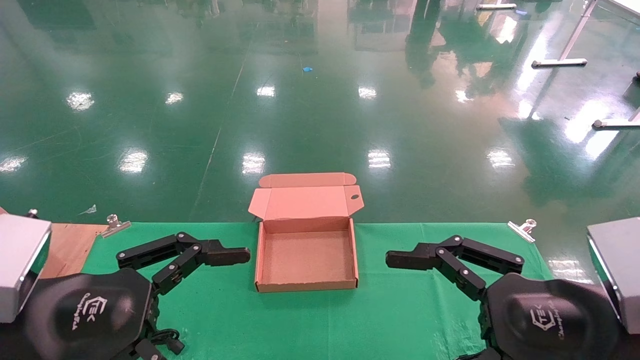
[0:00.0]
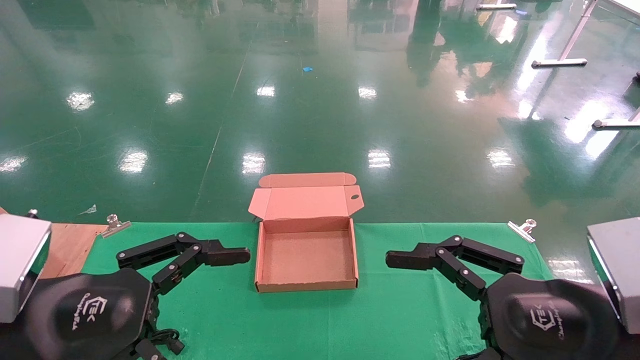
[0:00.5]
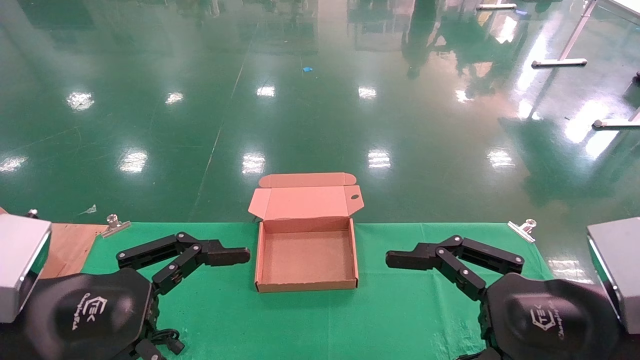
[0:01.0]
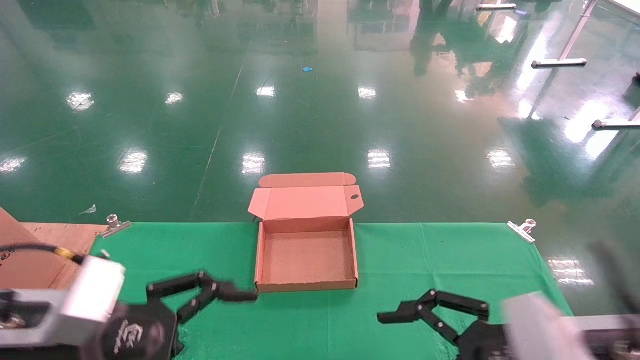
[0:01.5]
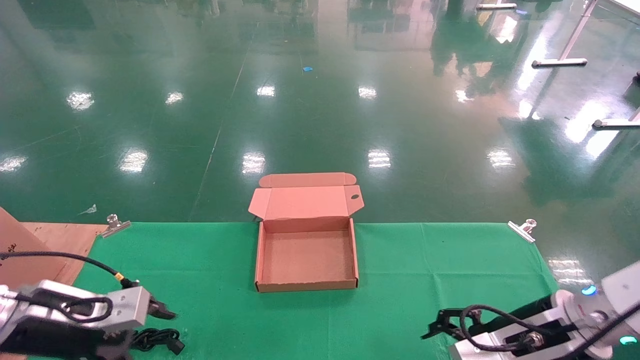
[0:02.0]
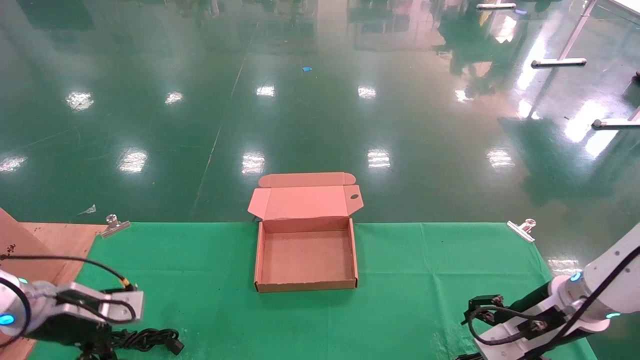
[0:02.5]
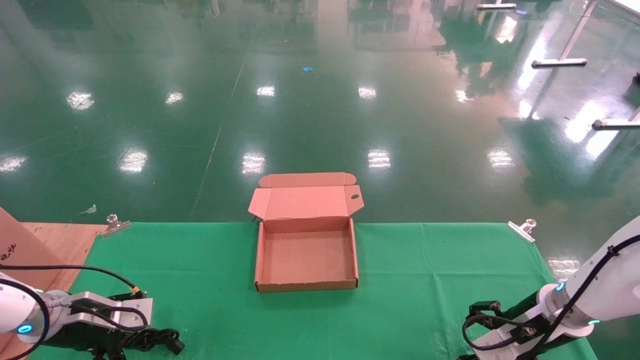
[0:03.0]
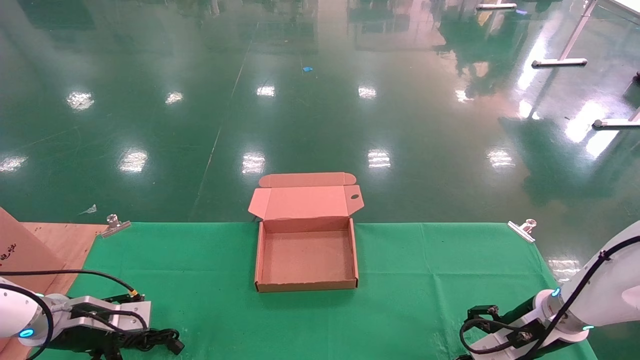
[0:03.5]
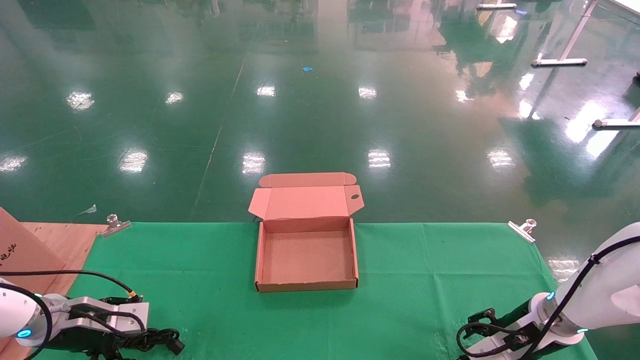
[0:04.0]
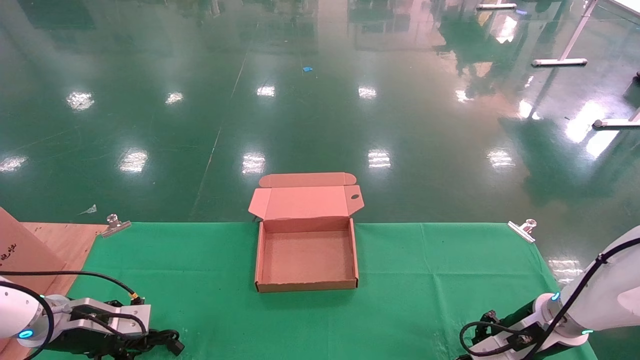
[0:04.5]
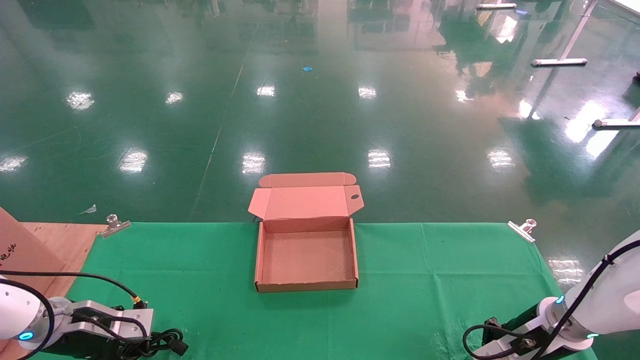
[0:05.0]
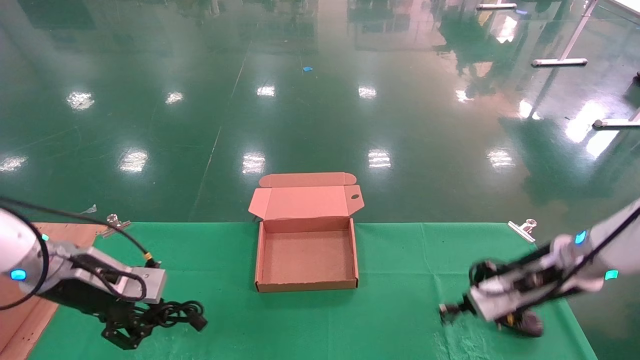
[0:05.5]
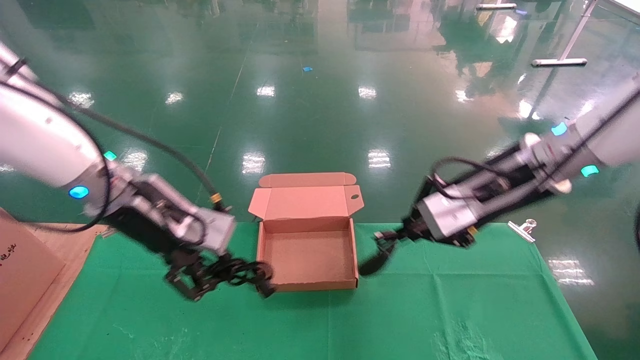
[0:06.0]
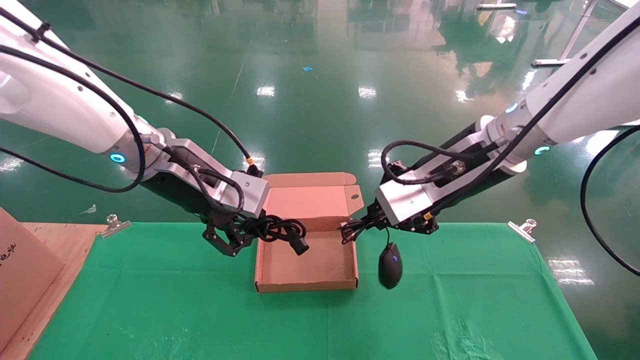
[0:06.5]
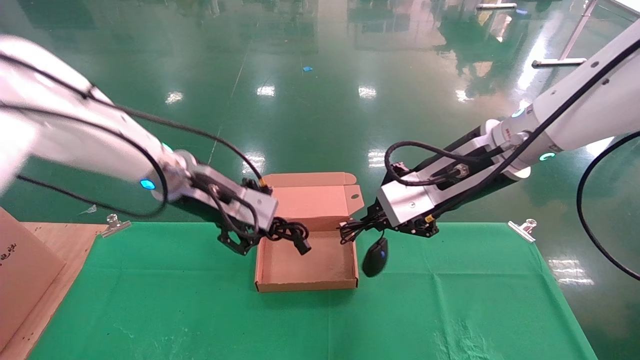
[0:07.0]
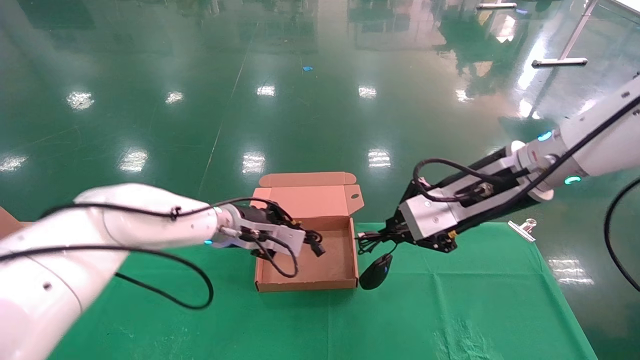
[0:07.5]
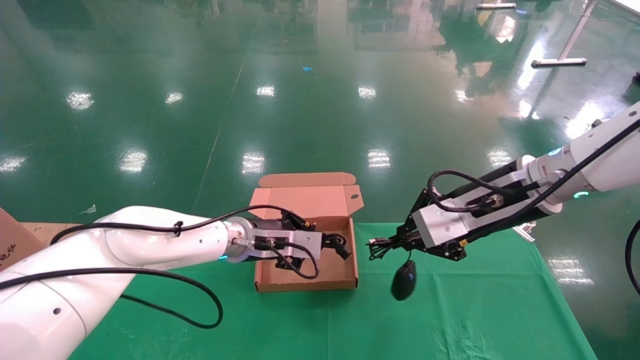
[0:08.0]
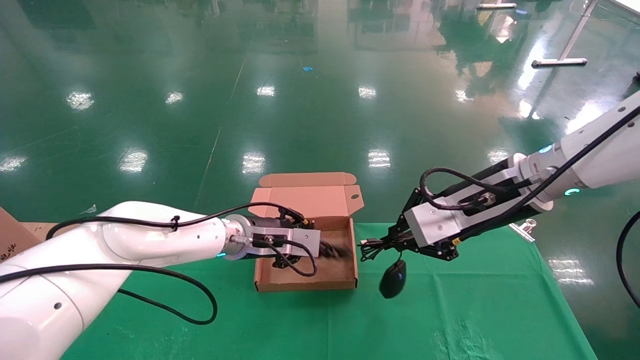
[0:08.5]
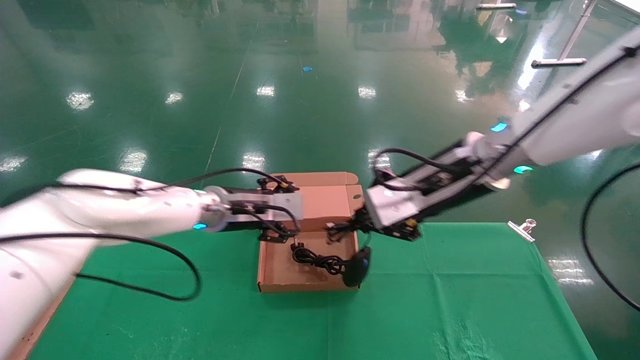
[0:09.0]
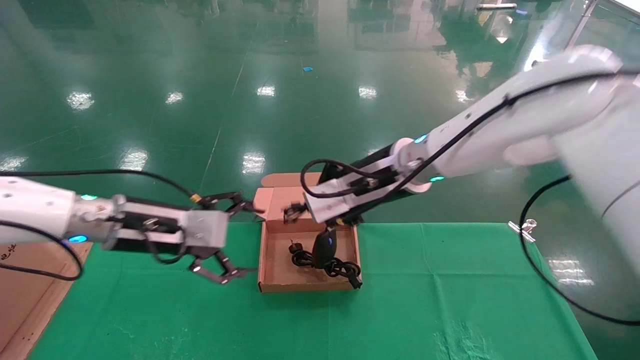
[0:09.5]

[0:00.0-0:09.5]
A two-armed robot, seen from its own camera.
Step, 0:02.0 to 0:04.5: Grab and lift both the mouse and power cord from the accessory packaging area at the same time.
0:00.0 to 0:02.0: The right gripper travels forward and downward by approximately 15 cm; the left gripper is displaced forward, downward and to the left by some 20 cm.
0:02.0 to 0:04.0: The left gripper heads downward and forward, covering roughly 10 cm. The right gripper shifts some 10 cm forward and downward.
0:04.0 to 0:05.5: The right gripper goes some 10 cm upward, and closes up. The left gripper shifts roughly 15 cm upward and to the right, and closes its fingers.
0:05.5 to 0:07.5: The left gripper is displaced to the right and forward by some 20 cm, while the right gripper travels upward and to the left by approximately 15 cm.
0:07.5 to 0:09.5: The right gripper is displaced to the left and forward by roughly 15 cm; the left gripper shifts roughly 15 cm to the left and backward, and opens up.

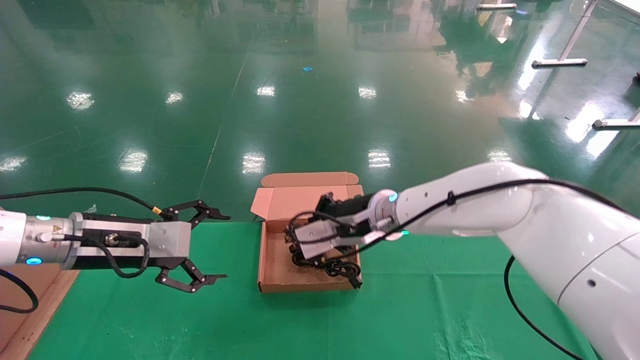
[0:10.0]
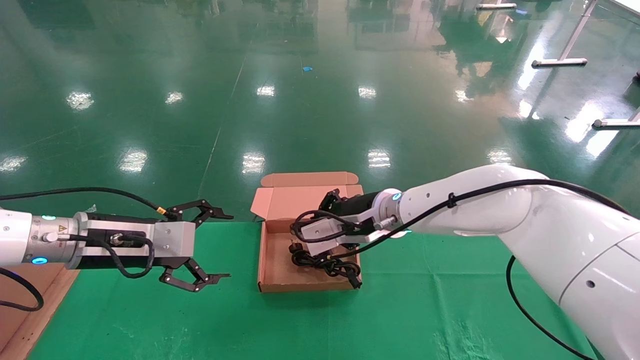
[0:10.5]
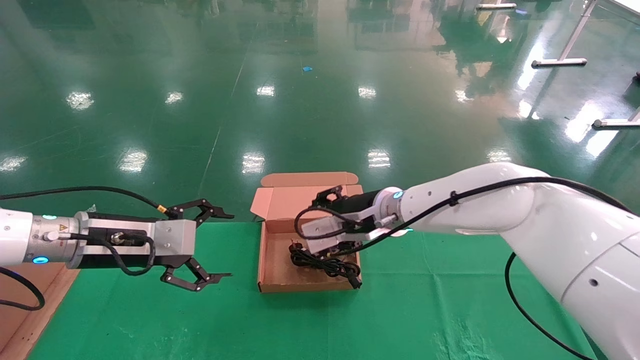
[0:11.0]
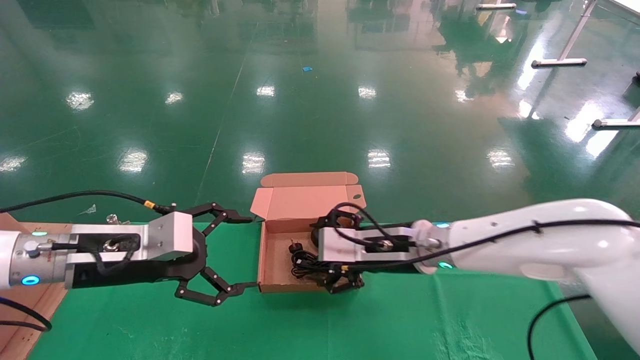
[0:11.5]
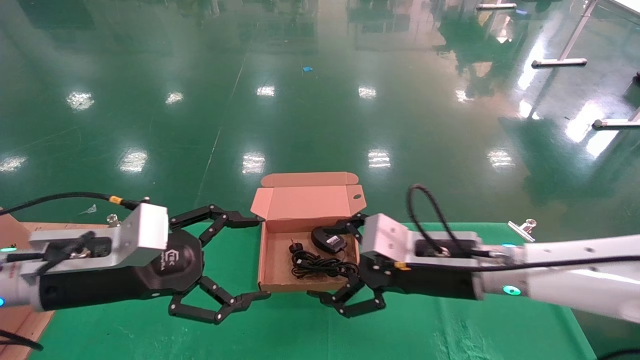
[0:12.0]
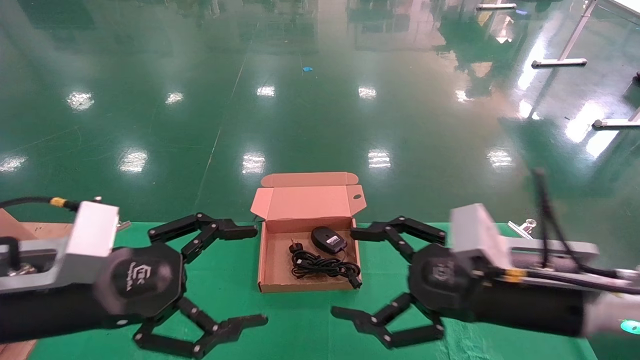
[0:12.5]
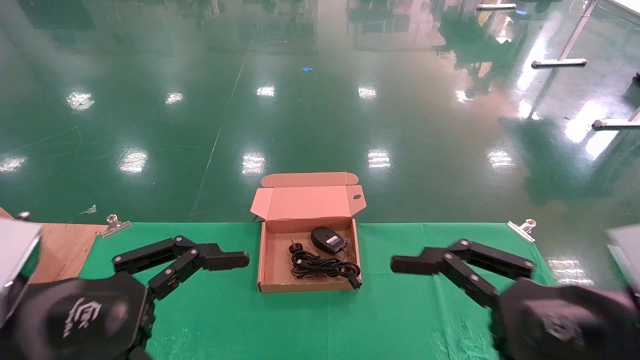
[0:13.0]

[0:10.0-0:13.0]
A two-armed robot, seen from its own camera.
0:10.0 to 0:11.5: The right gripper changes place by some 10 cm, and opens up.
0:11.5 to 0:13.0: The right gripper shifts about 25 cm backward and to the right; the left gripper shifts some 15 cm backward.
